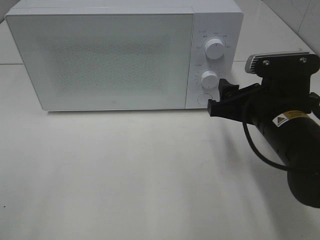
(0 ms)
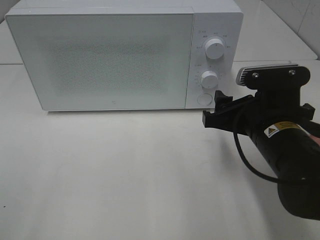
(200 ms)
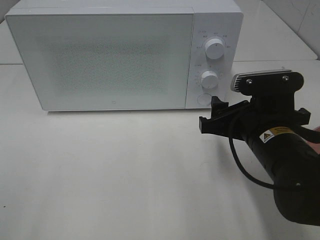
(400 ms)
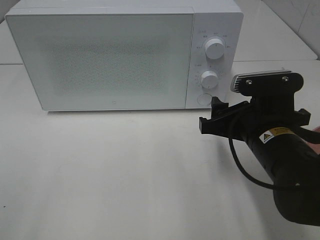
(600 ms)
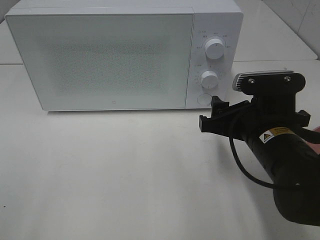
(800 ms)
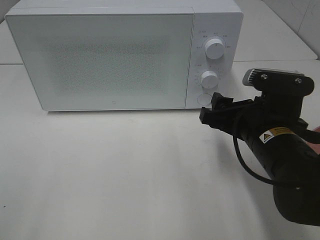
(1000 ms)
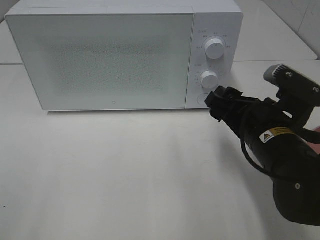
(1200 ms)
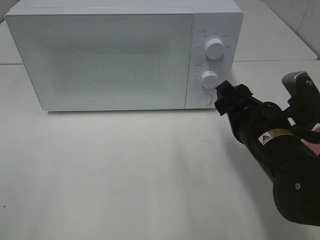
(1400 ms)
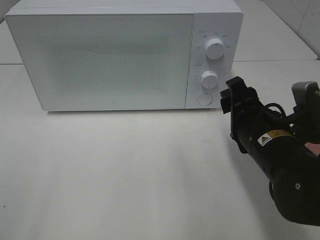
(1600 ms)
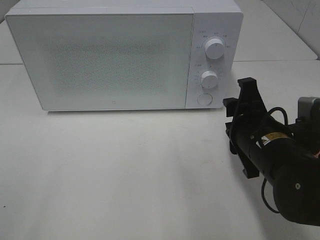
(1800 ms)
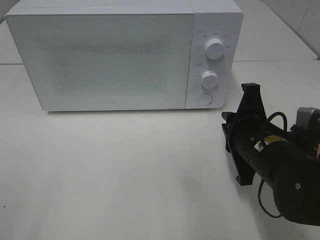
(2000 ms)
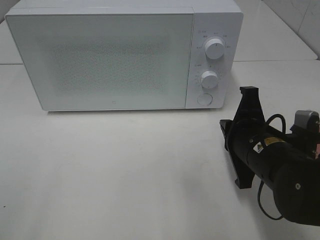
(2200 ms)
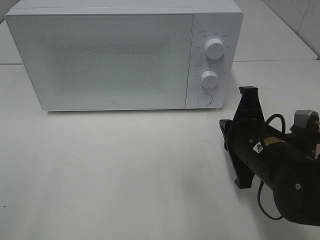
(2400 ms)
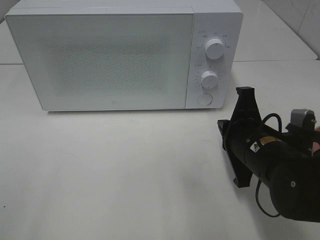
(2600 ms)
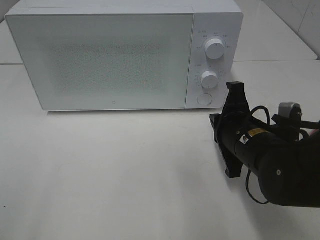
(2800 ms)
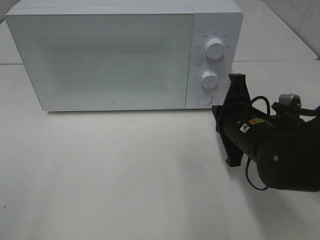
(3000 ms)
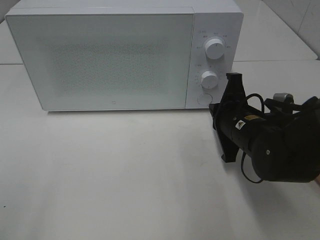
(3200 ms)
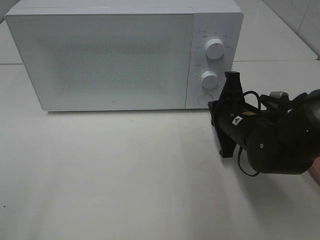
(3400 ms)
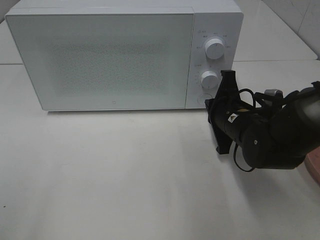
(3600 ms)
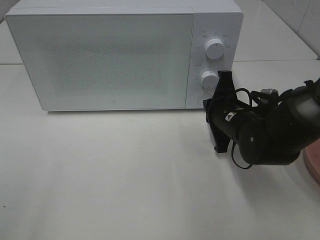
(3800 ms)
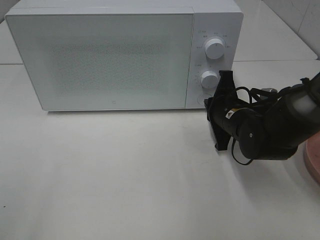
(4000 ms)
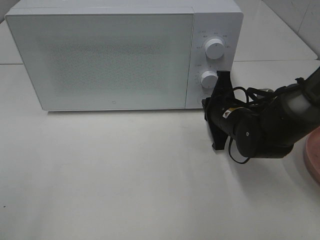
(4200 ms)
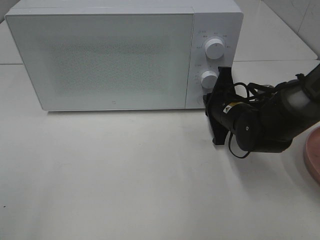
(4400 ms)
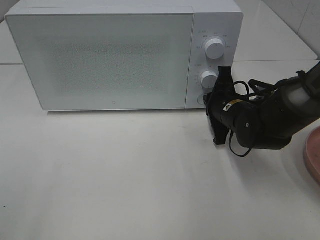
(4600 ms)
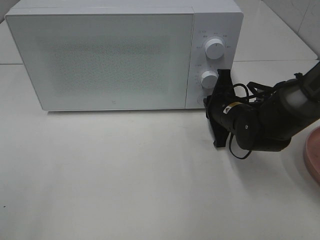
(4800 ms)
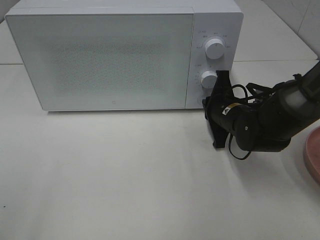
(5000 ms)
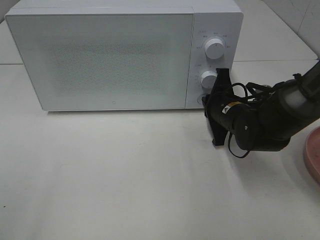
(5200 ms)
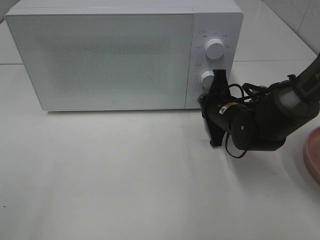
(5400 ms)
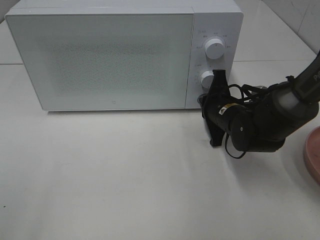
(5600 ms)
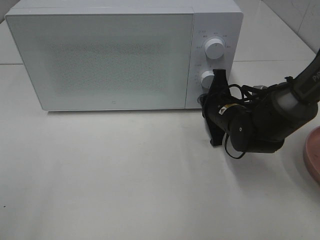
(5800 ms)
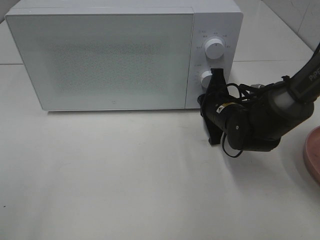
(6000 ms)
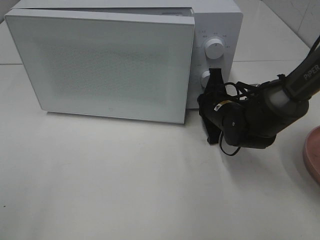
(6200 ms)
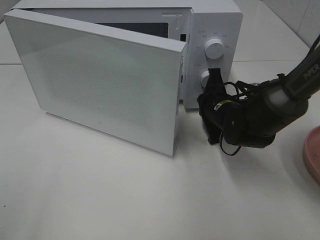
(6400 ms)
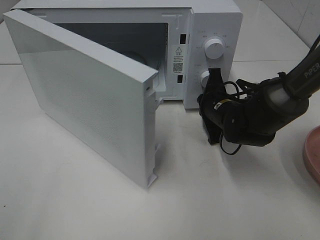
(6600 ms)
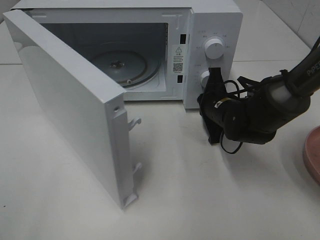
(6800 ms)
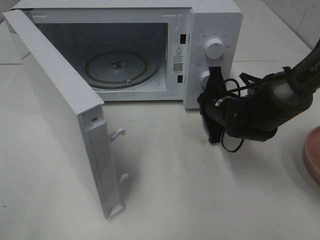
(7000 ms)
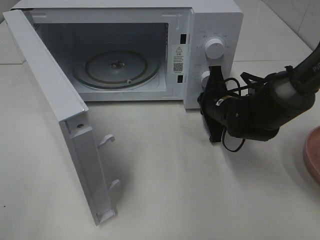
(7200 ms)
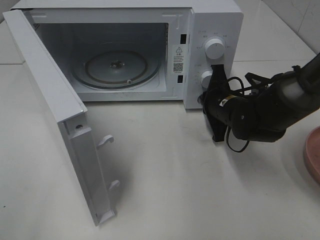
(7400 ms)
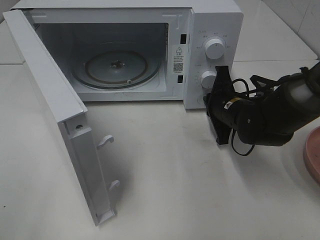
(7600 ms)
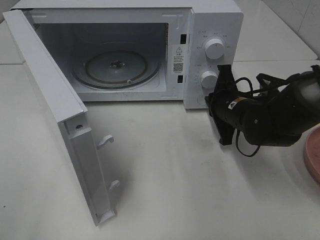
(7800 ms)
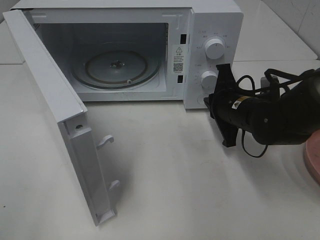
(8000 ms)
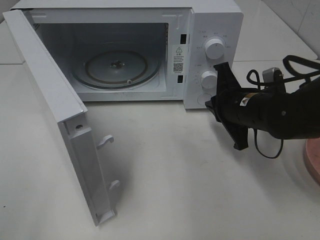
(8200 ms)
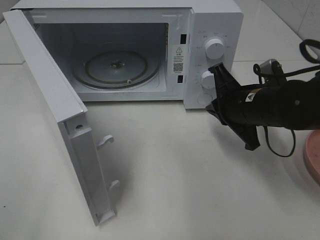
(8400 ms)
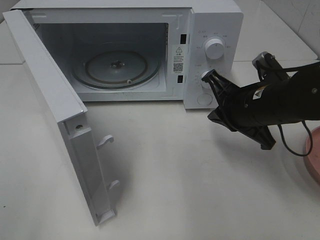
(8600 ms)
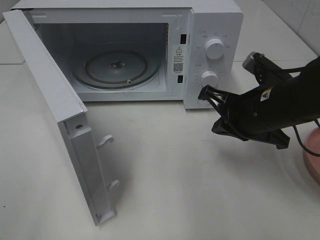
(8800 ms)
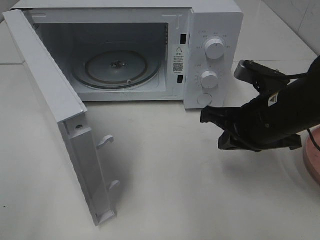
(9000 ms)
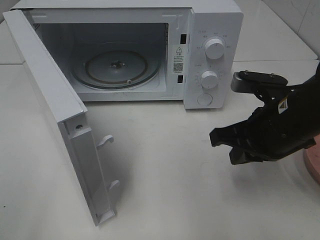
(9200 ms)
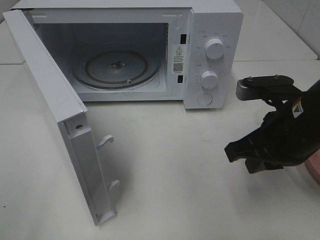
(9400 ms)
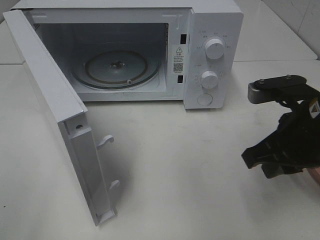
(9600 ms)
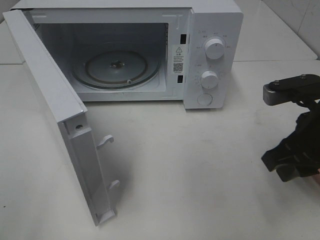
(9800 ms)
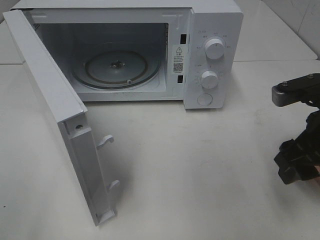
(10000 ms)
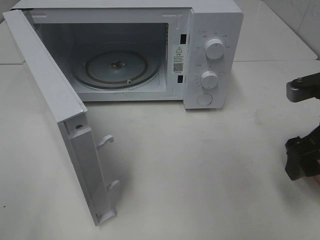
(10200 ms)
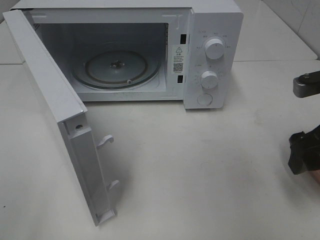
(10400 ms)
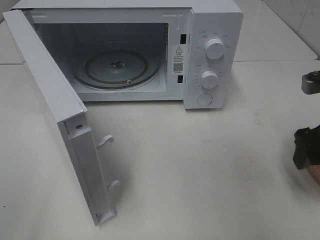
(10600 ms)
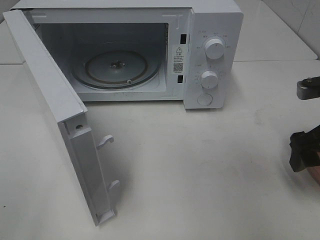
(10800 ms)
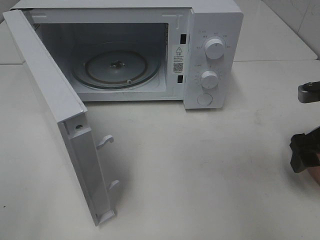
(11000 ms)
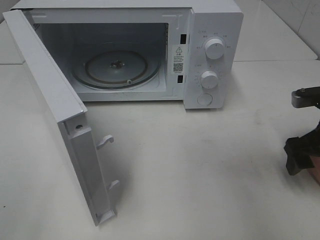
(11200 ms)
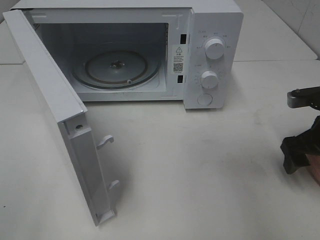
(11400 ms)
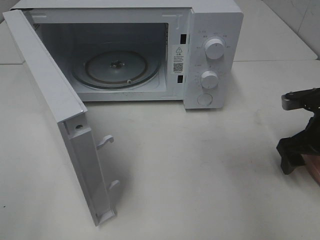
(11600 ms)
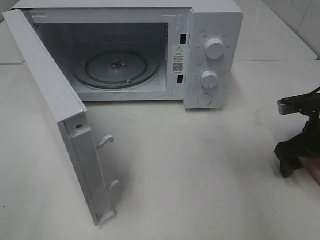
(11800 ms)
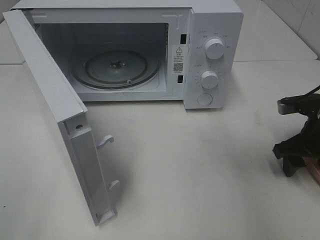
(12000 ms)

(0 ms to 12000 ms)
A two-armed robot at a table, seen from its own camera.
Task of the whole recording: Heat the burger.
Step, 0 ms - 8000 ms: Right hand: press the switch.
1600 ms - 3000 ms: The right gripper closes.
3000 ms - 4400 ms: The right gripper moves forward, roughly 10 cm.
4400 ms - 6000 ms: The grippers move only a little.
7600 ms - 9000 ms: The right gripper moves backward and upward, about 15 cm.
9000 ms - 10400 ms: The right gripper is displaced to the right by about 10 cm, and opens.
10400 ms - 12000 ms: The right gripper goes approximately 10 cm downward and forward.

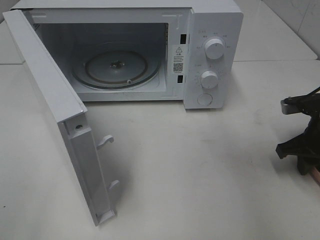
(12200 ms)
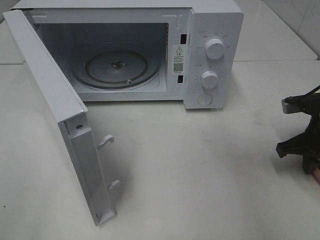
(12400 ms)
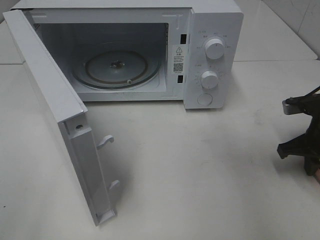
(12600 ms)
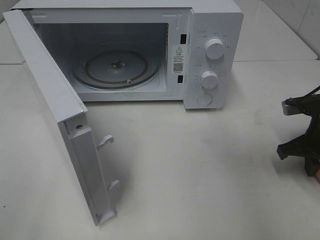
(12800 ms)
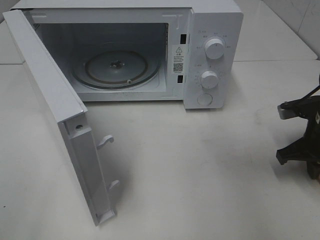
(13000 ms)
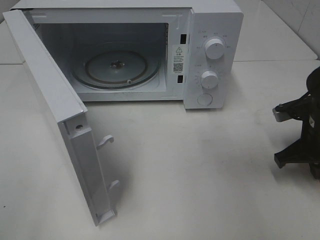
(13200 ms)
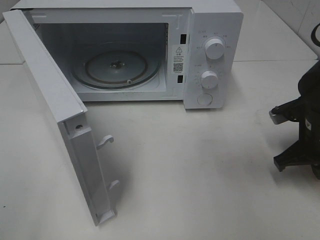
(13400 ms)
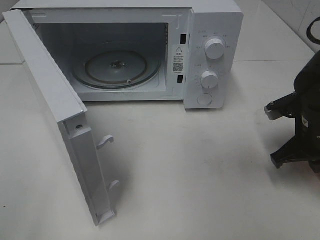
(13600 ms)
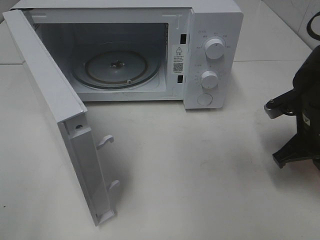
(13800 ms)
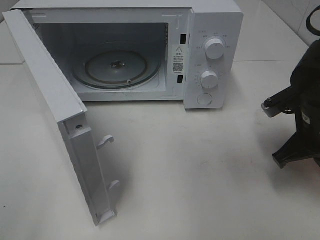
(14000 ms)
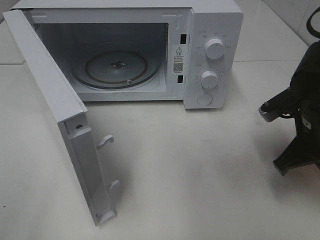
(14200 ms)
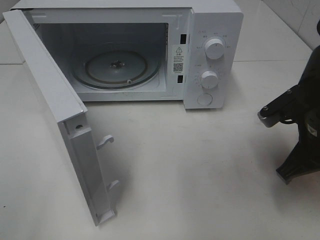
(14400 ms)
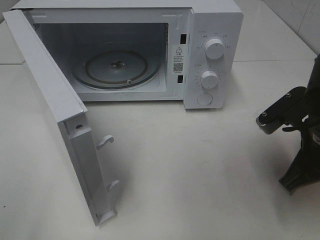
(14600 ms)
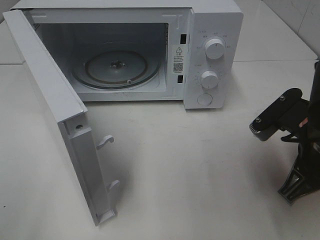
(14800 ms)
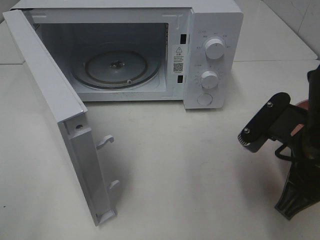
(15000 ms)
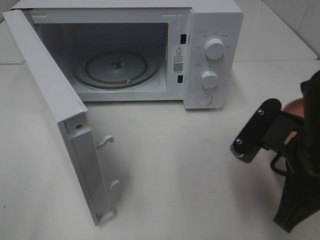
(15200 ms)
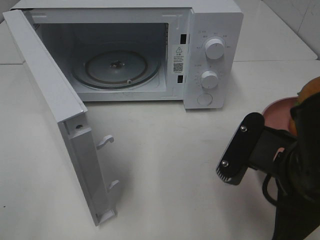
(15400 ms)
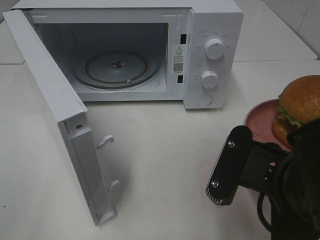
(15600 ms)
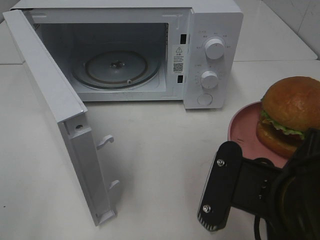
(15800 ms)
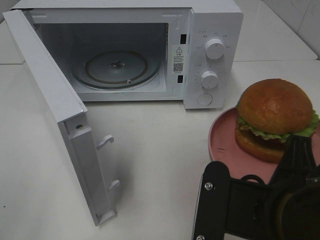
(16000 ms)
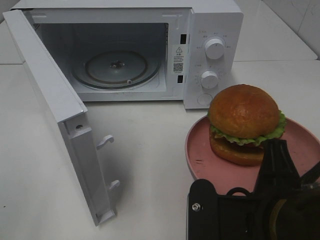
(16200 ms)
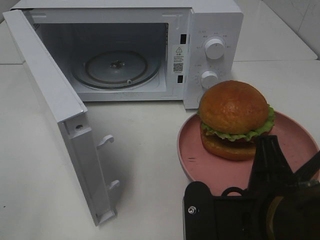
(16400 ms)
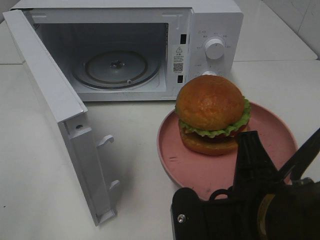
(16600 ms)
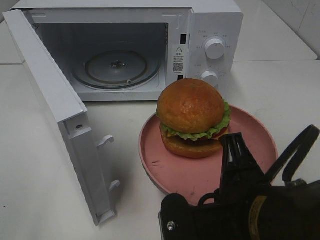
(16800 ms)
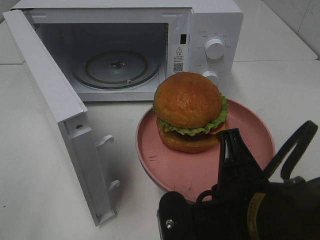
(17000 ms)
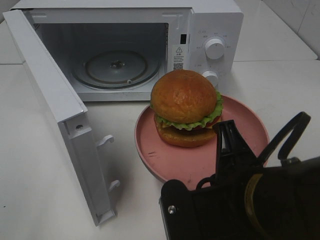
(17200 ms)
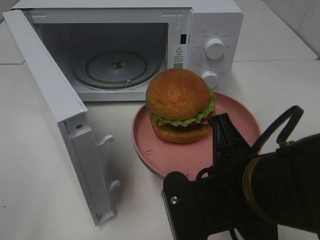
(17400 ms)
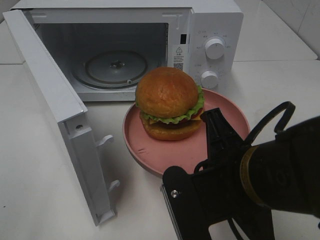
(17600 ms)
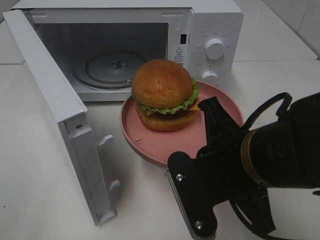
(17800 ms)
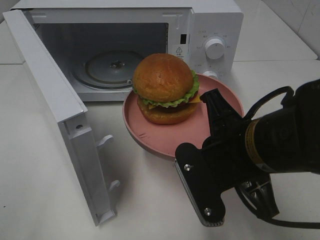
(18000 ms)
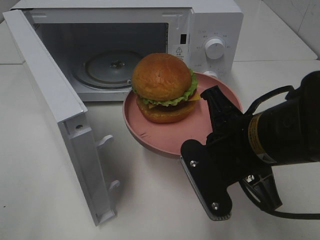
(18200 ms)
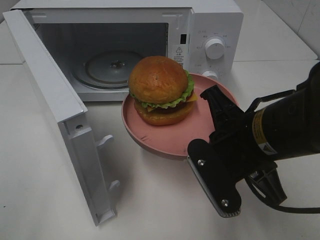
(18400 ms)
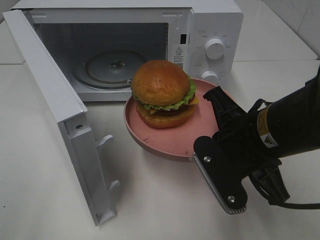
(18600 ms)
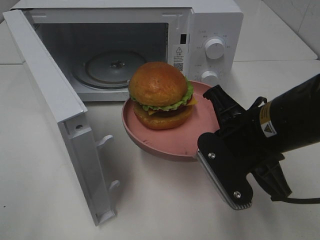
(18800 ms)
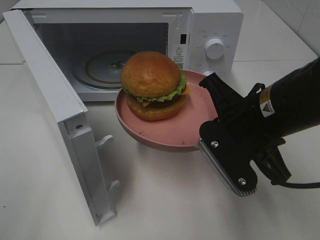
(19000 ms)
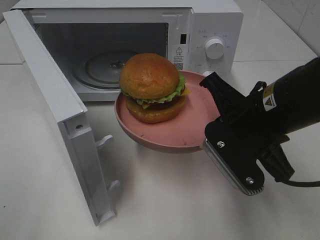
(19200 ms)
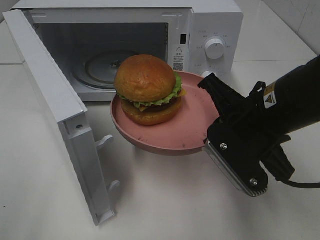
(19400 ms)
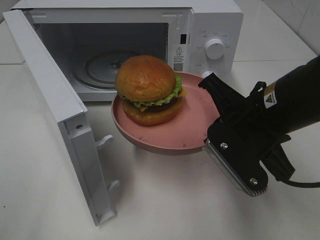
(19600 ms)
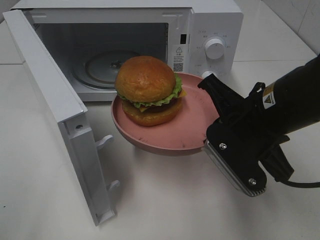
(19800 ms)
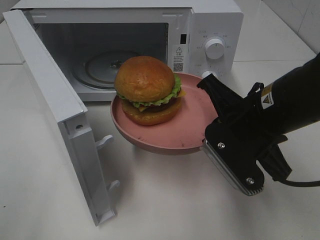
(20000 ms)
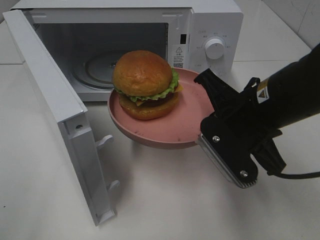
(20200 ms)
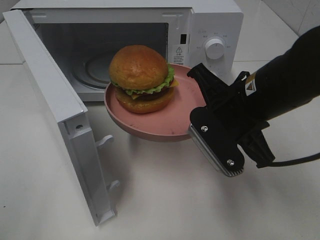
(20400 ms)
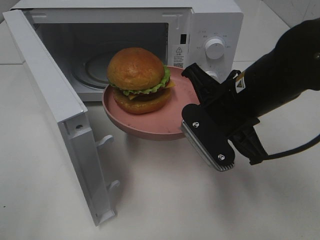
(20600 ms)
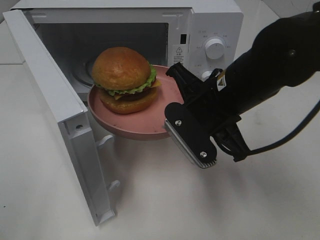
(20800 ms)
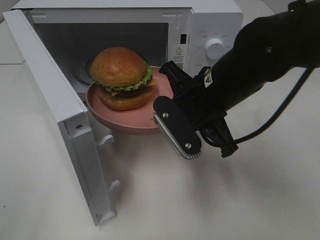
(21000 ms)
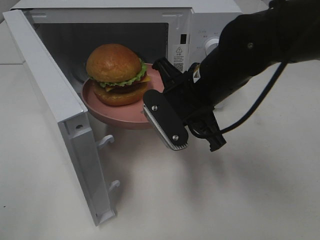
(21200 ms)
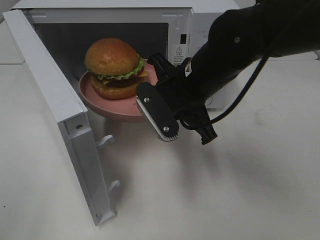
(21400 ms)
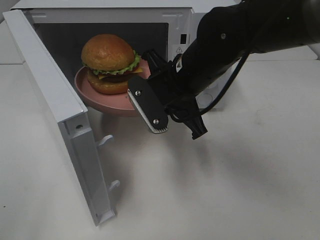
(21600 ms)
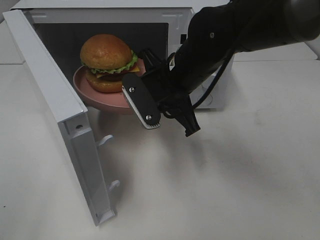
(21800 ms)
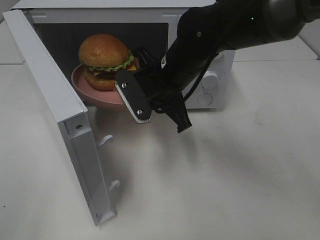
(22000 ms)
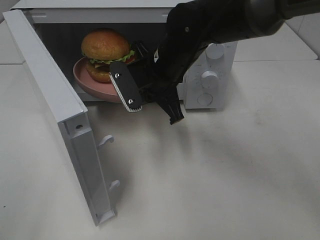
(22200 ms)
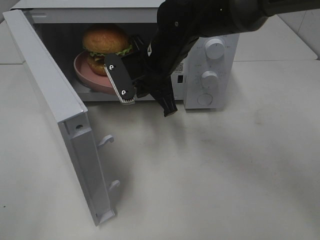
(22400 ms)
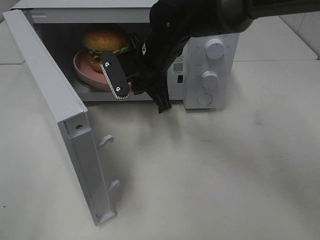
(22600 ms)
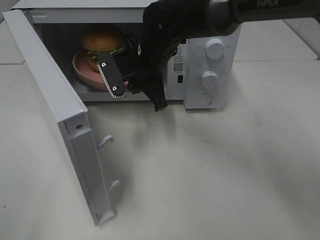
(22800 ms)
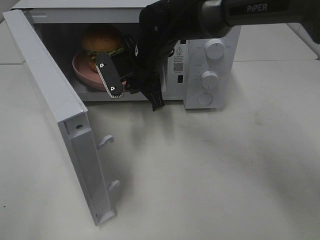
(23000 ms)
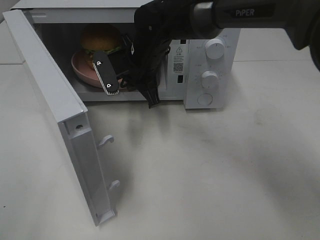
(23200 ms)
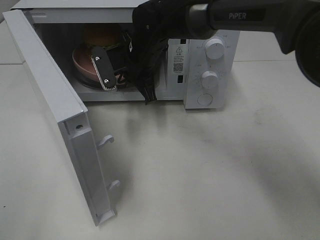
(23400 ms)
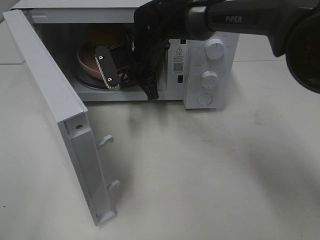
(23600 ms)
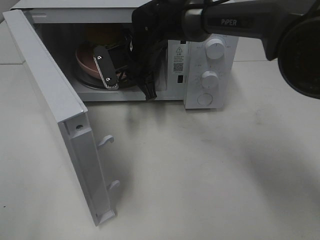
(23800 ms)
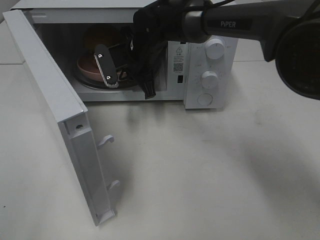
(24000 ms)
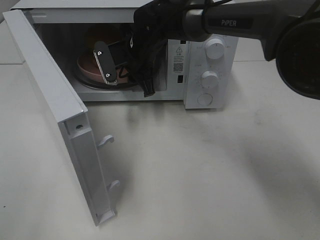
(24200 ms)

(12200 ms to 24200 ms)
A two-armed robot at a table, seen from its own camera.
Task of the whole recording: Heat the burger.
12200 ms - 13800 ms: The right gripper ends up approximately 5 cm from where it was.
13800 ms - 15200 ms: The right gripper goes some 15 cm backward, to the left and upward.
15200 ms - 16600 ms: The right gripper shifts some 10 cm backward and to the left.
16600 ms - 18200 ms: The right gripper is displaced forward by about 10 cm.
18200 ms - 19800 ms: The grippers stay close to where they were, moving slightly.
19800 ms - 21200 ms: The right gripper moves to the left and forward, some 10 cm.
21200 ms - 22600 ms: The right gripper moves forward and to the left, some 10 cm.
22600 ms - 24200 ms: The right gripper goes roughly 5 cm forward, and opens up.
